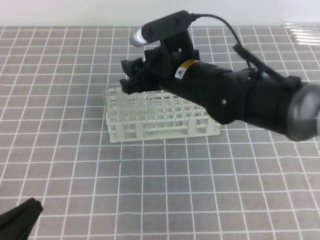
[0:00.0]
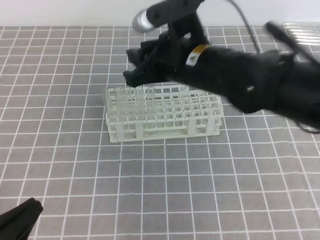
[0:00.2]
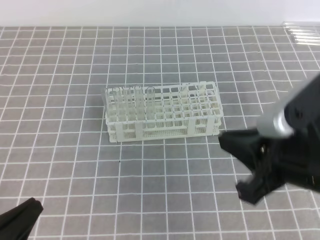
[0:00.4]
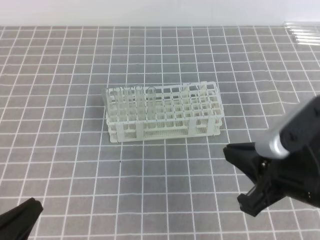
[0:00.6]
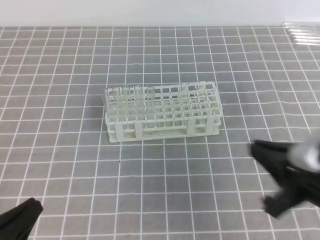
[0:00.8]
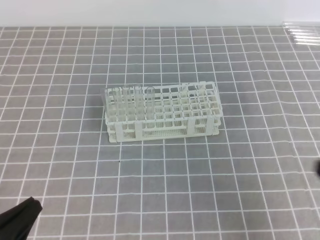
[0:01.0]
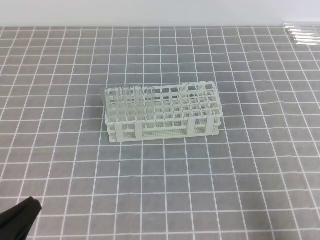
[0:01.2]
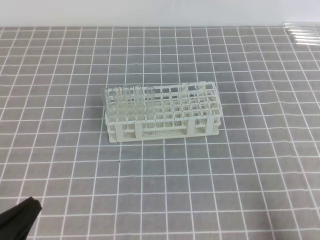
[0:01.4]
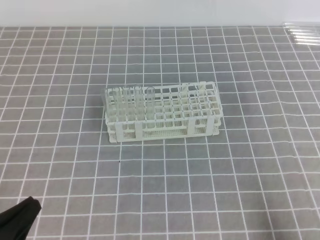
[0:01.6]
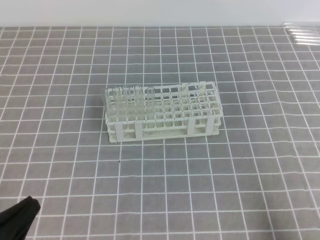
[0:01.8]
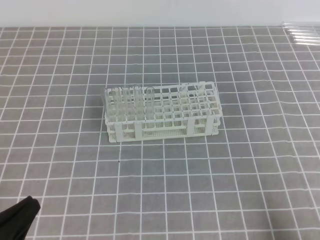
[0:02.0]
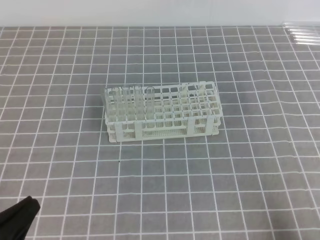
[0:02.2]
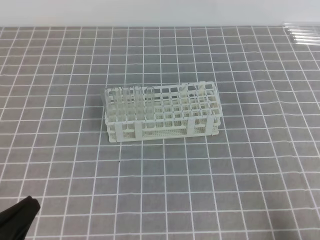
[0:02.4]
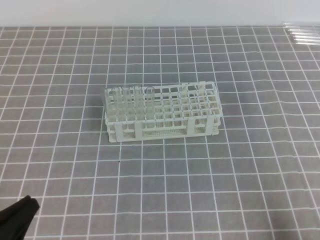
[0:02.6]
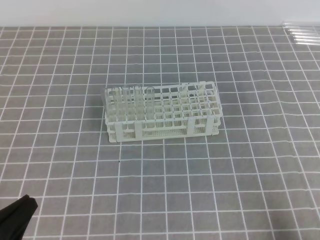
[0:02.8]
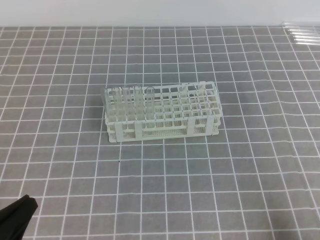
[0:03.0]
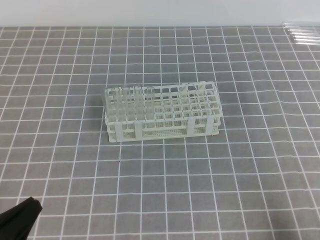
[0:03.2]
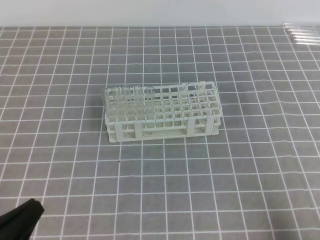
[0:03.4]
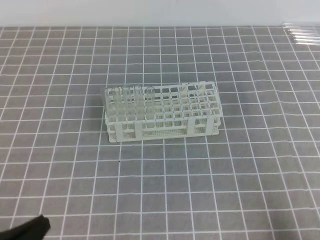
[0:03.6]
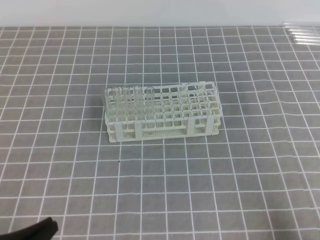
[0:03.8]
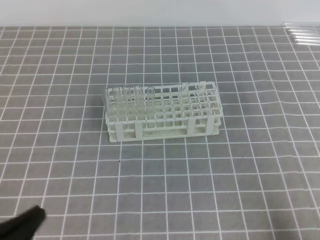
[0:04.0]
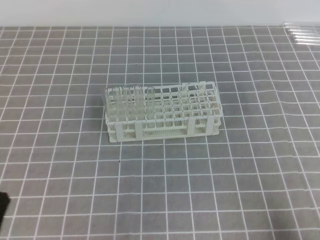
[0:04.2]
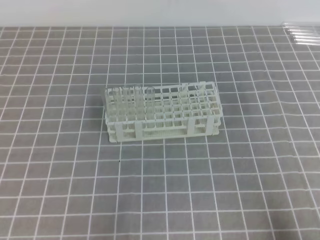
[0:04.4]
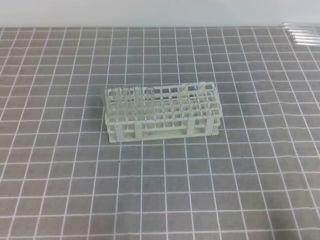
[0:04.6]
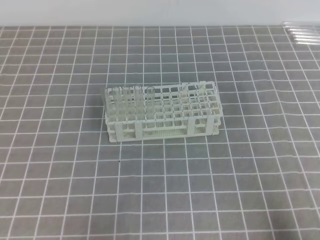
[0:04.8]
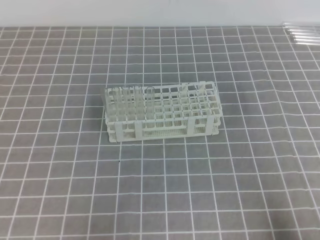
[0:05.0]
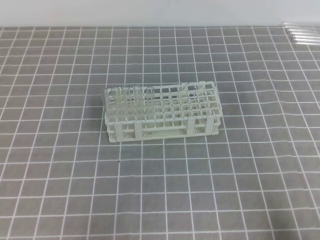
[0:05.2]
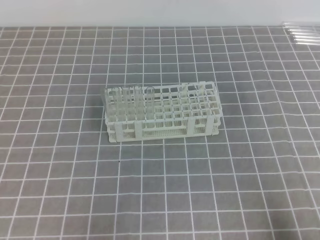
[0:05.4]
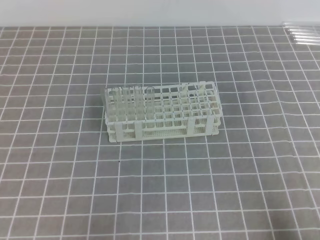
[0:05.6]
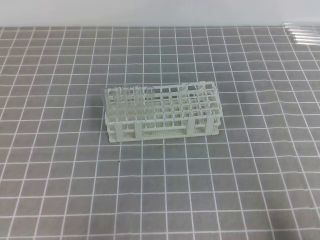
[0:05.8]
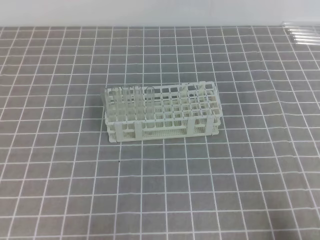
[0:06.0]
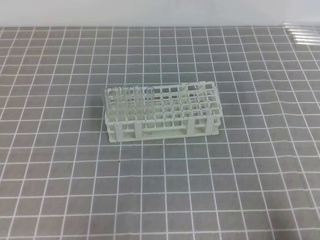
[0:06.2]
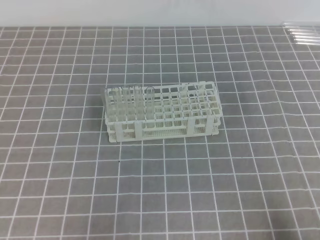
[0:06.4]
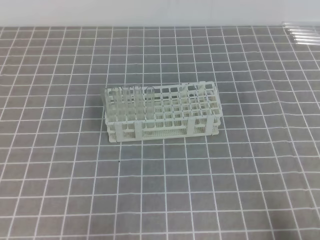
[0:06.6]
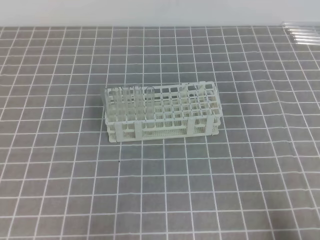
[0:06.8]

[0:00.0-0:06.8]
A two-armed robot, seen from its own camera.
0:00.0 to 0:01.4: The right gripper shifts some 35 cm to the right and backward, and closes its fingers.
0:01.4 to 0:04.0: The grippers stay close to where they were, moving slightly.
0:05.4 to 0:06.8: Neither gripper changes place.

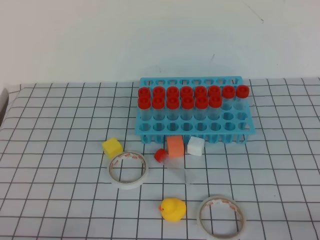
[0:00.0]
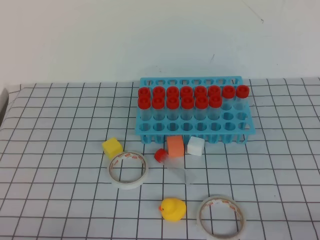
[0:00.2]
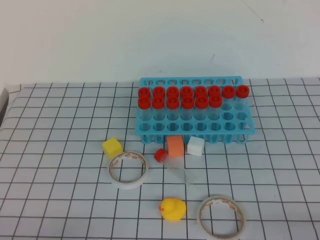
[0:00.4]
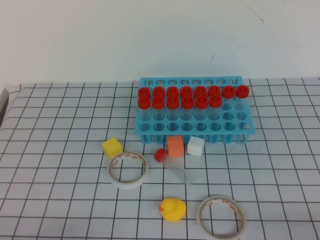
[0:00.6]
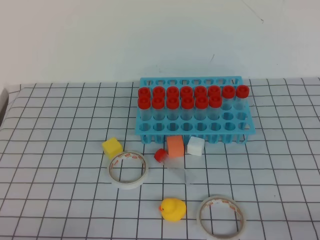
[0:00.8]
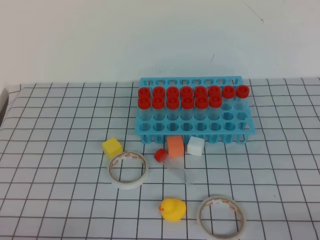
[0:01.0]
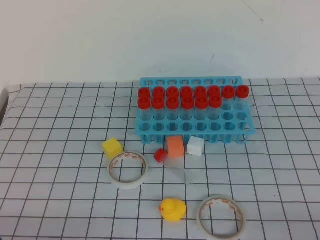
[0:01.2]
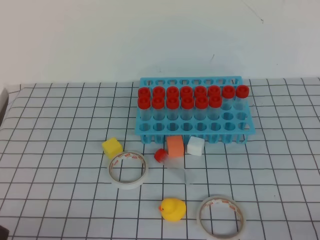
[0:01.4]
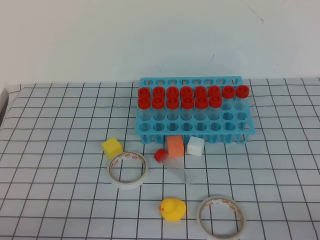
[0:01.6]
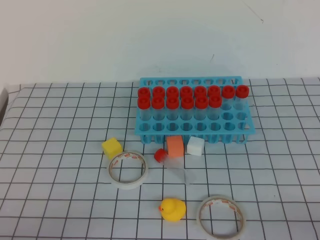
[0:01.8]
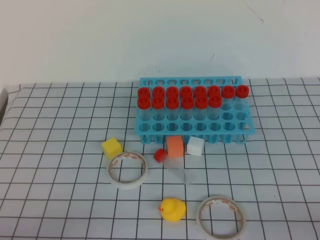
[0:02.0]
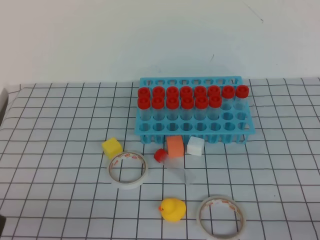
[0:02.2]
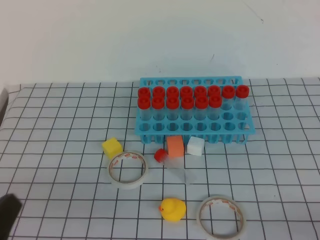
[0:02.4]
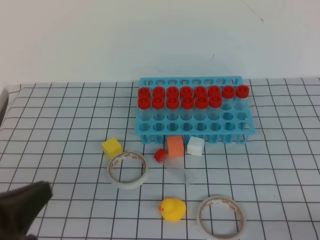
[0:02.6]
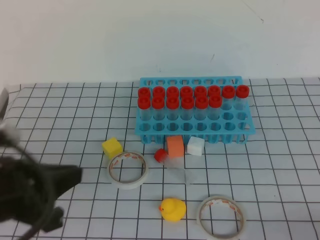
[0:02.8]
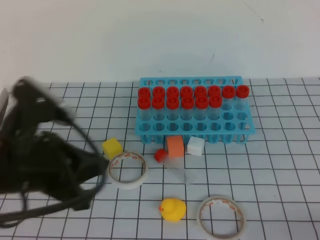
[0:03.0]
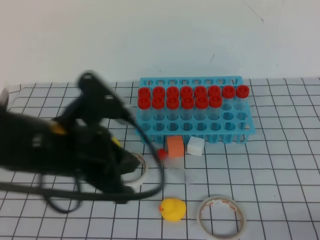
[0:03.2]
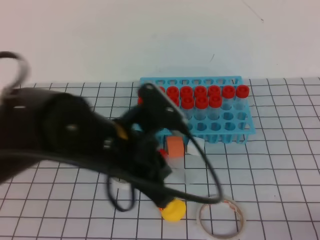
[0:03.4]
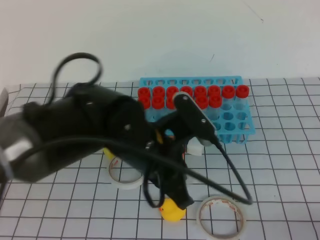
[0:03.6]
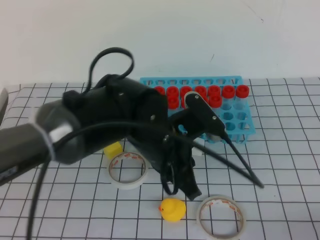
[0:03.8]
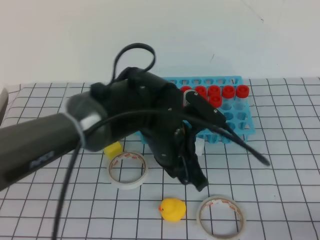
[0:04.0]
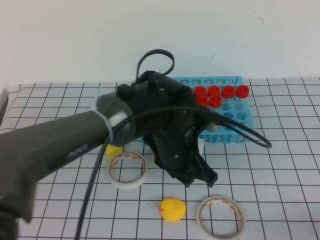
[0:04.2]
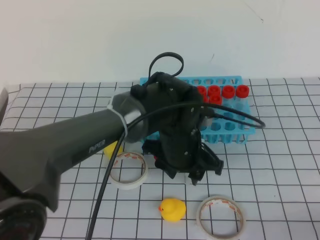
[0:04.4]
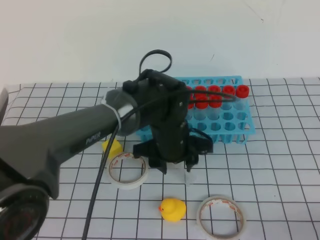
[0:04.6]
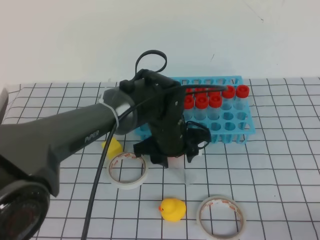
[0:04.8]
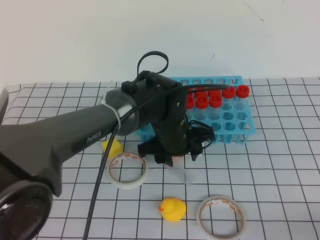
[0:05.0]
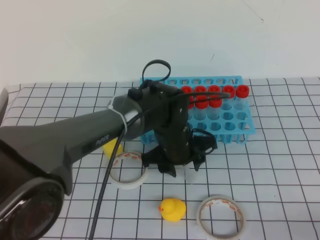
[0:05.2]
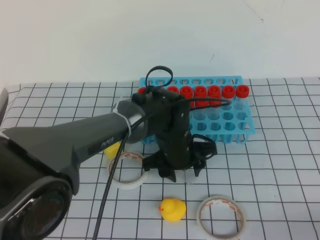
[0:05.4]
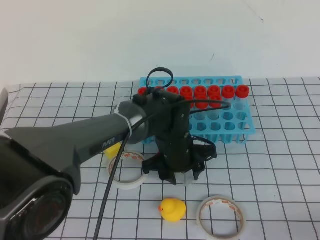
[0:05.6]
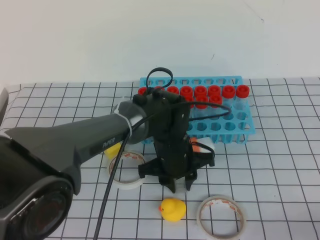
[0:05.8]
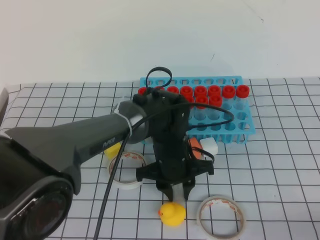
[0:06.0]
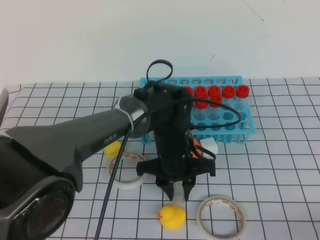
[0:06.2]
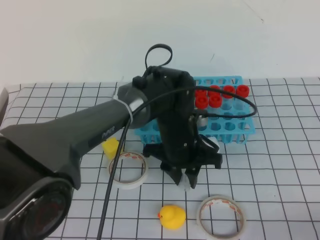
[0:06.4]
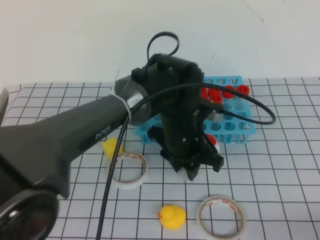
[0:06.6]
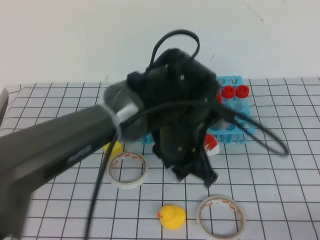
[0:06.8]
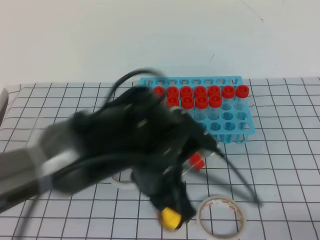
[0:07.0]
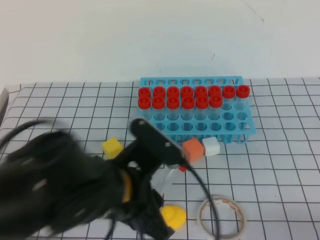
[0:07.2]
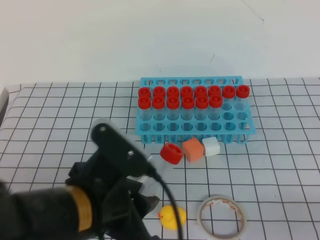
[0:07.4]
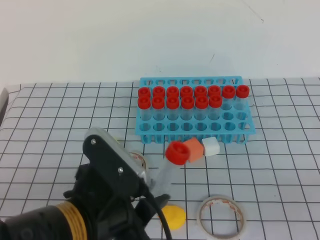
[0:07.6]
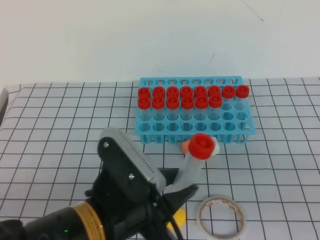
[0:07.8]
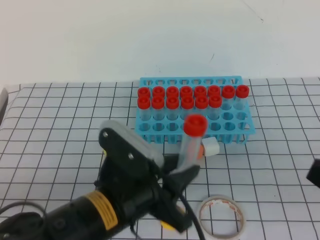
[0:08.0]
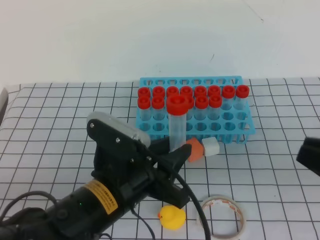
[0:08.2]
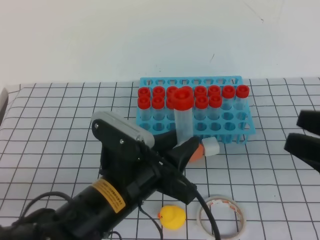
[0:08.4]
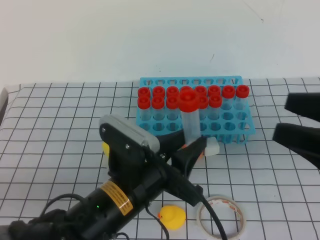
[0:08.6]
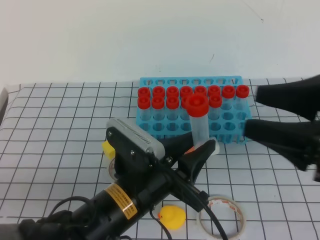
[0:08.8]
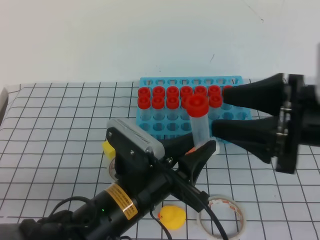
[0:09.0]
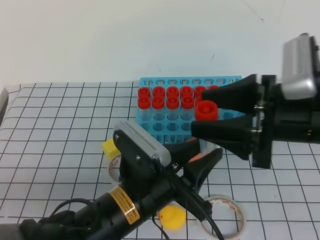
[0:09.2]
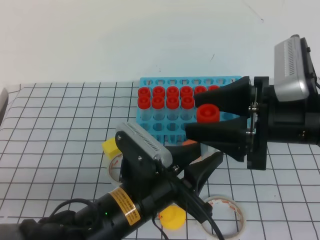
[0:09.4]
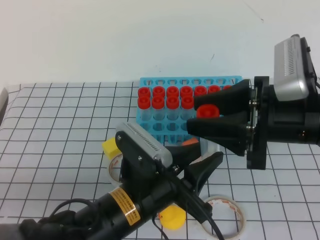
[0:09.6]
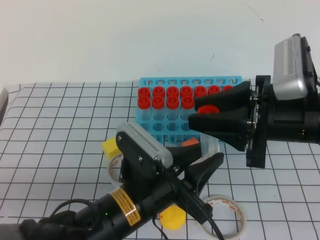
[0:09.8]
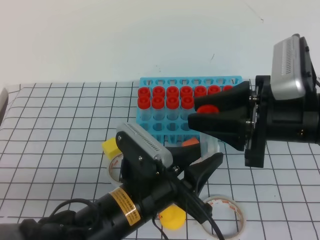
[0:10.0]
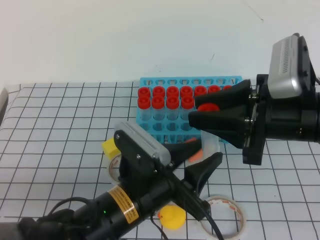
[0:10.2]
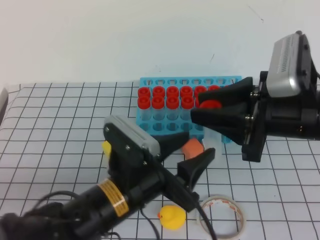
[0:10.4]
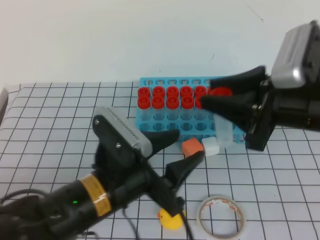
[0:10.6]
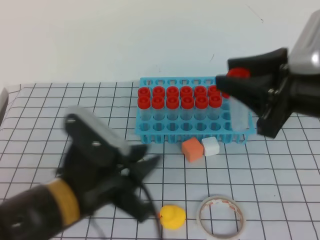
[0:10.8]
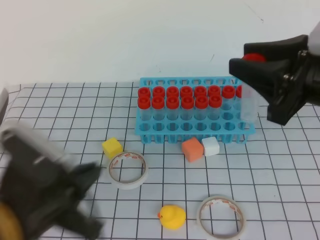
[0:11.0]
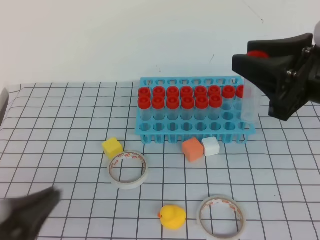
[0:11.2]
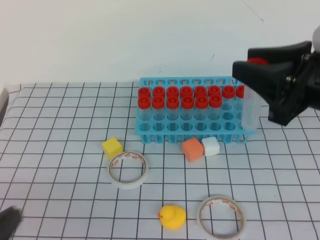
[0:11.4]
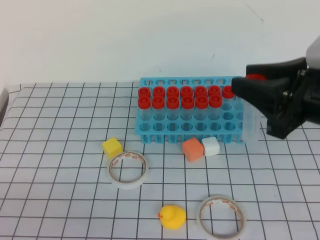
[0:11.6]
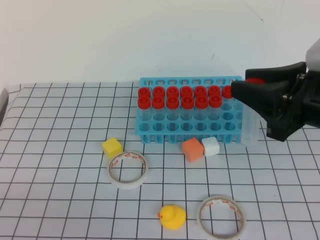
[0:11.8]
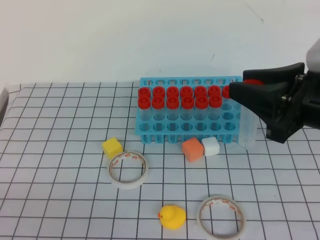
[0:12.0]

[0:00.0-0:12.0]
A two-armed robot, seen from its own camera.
0:01.6 to 0:03.0: The left gripper moves upward, forward and to the right, some 20 cm.
0:03.0 to 0:04.4: The left gripper travels to the right, forward and downward by roughly 25 cm, and opens.
0:04.4 to 0:06.0: The left gripper travels downward by approximately 5 cm.
0:06.0 to 0:07.6: The left gripper is displaced backward, upward and to the left by roughly 25 cm; the right gripper moves upward, some 5 cm.
0:07.6 to 0:09.0: The right gripper goes some 20 cm forward, to the left and upward, and opens, while the left gripper moves forward, about 5 cm.
0:09.0 to 0:10.4: The right gripper closes up. Meanwhile the left gripper opens up.
0:10.4 to 0:12.0: The left gripper shifts roughly 25 cm to the left and backward, and closes.

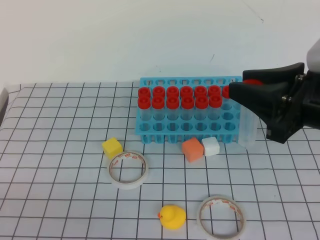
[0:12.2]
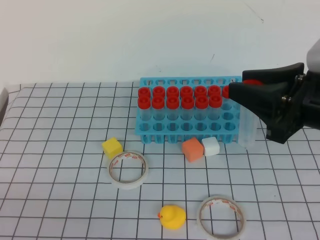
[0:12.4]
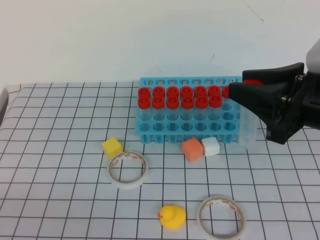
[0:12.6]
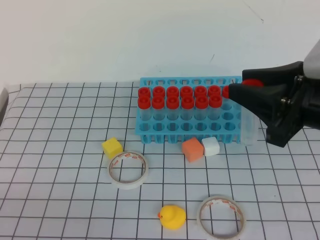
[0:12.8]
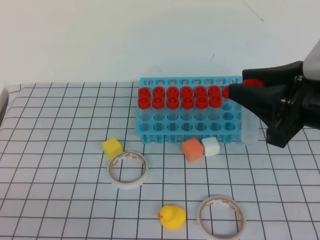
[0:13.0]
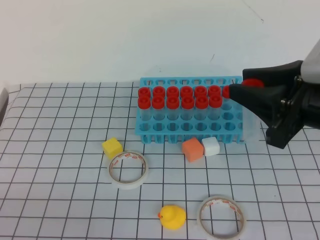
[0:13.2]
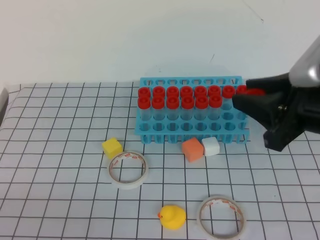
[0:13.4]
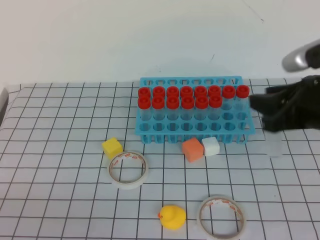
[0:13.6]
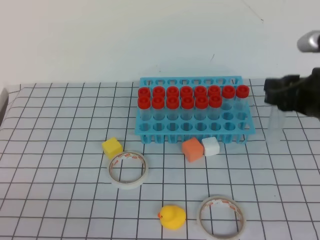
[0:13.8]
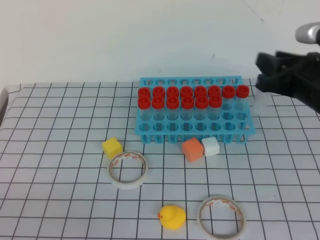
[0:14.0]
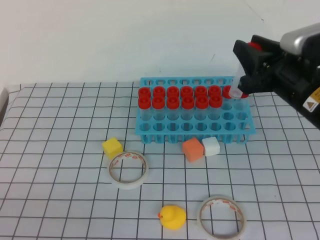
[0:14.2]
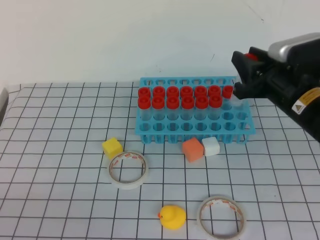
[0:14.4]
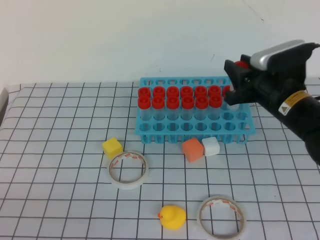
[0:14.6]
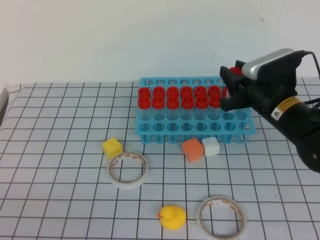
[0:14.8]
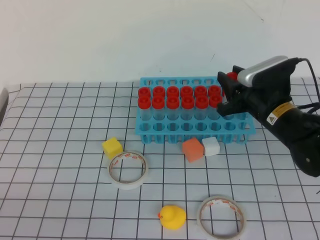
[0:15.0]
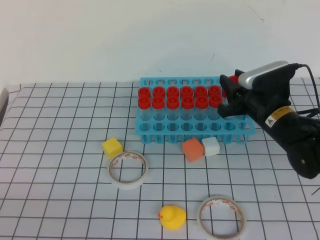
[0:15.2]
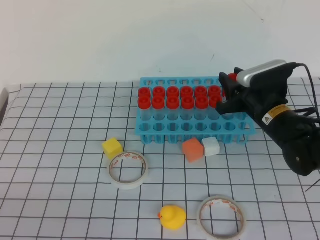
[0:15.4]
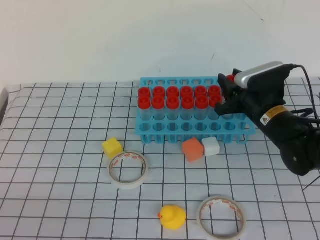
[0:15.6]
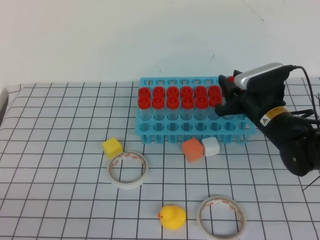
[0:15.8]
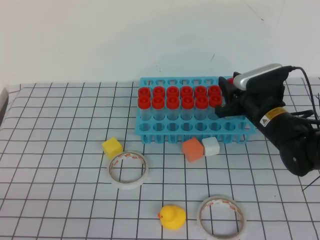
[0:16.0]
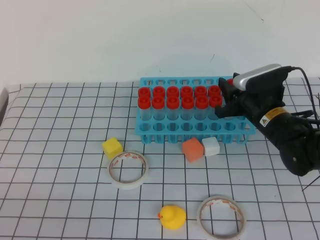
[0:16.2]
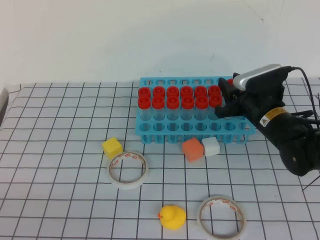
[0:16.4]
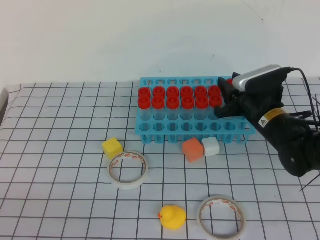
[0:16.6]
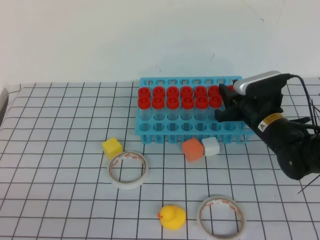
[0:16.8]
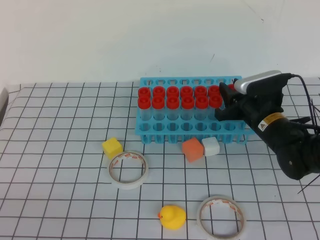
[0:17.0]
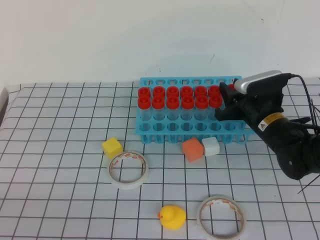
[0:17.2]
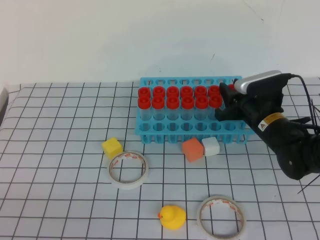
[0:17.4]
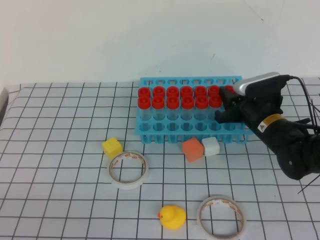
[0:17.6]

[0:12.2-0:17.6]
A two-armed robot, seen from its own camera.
0:13.6 to 0:15.0: The right gripper travels forward and downward by some 15 cm.
0:15.0 to 0:17.6: There are only small adjustments of the grippers.
